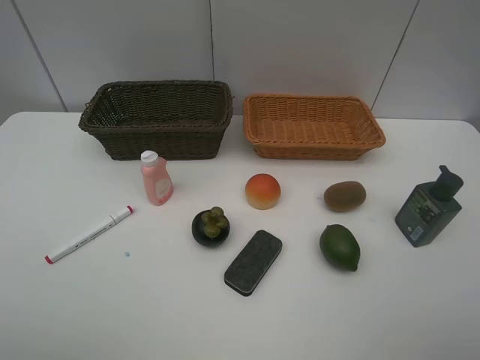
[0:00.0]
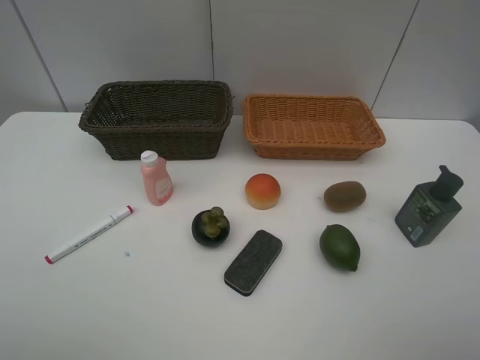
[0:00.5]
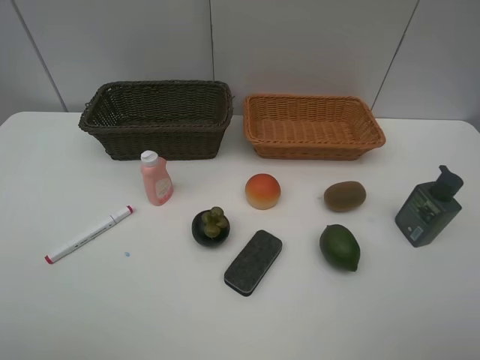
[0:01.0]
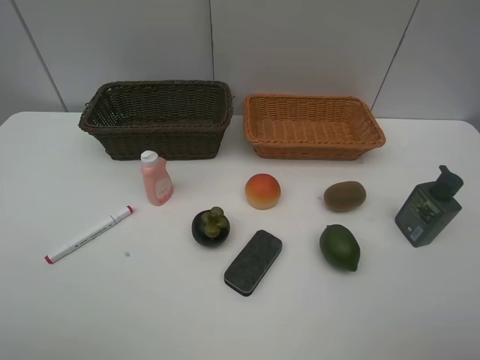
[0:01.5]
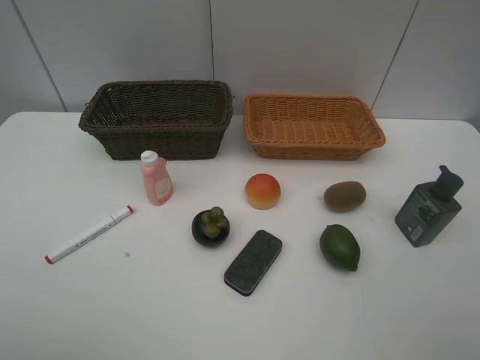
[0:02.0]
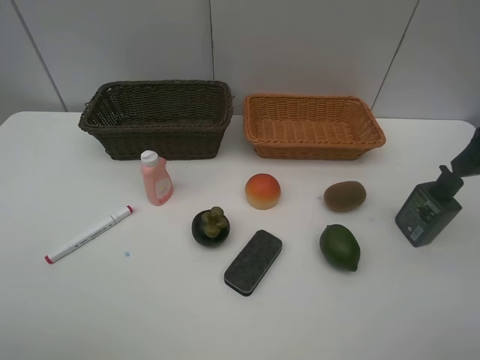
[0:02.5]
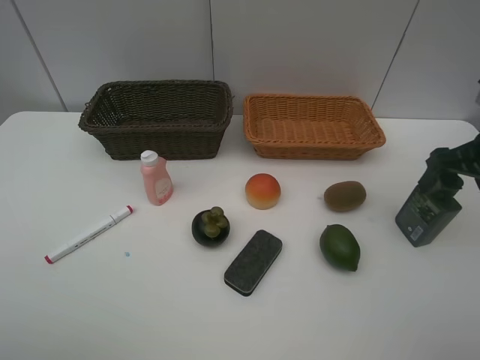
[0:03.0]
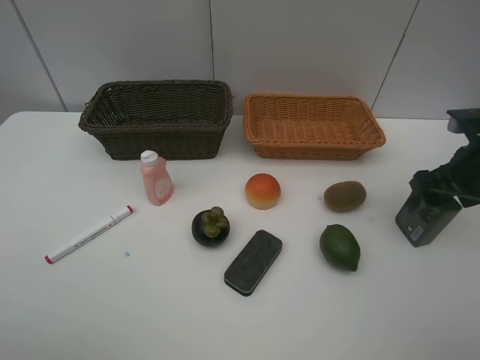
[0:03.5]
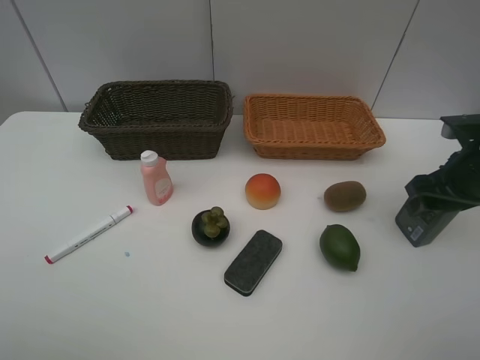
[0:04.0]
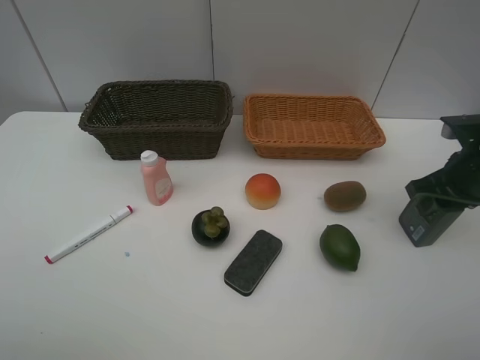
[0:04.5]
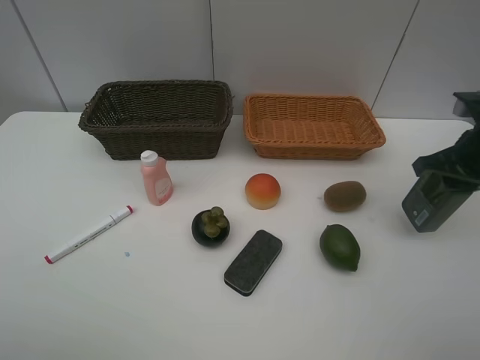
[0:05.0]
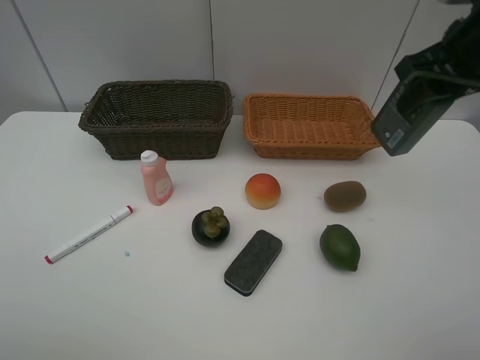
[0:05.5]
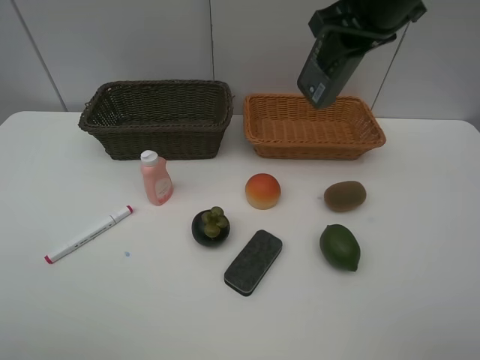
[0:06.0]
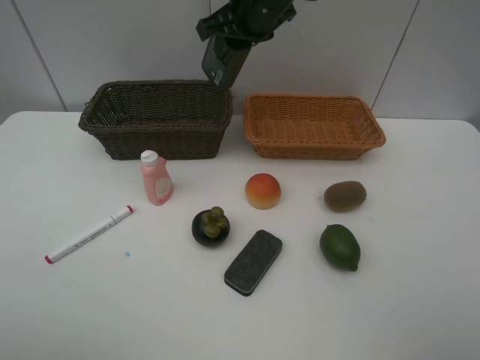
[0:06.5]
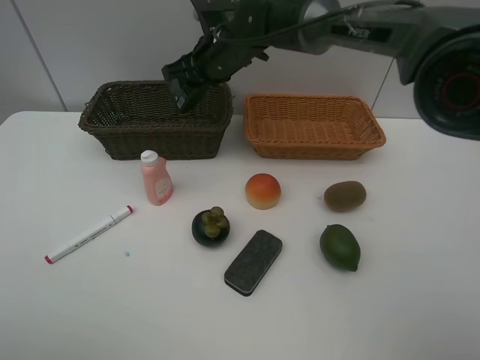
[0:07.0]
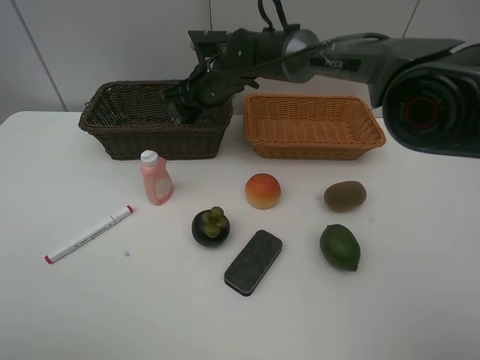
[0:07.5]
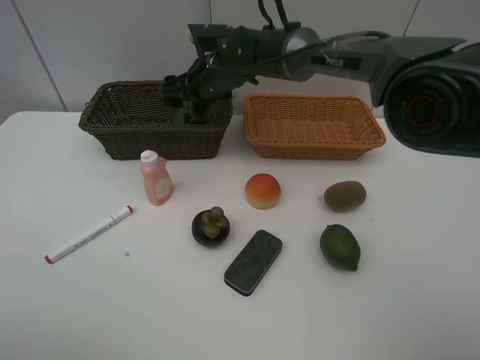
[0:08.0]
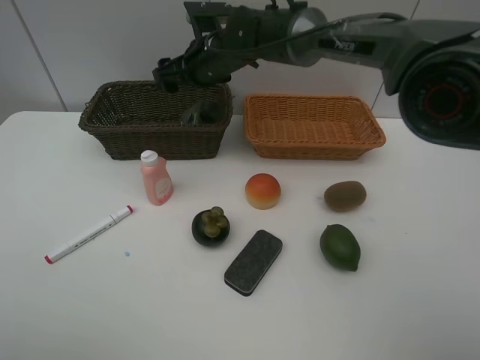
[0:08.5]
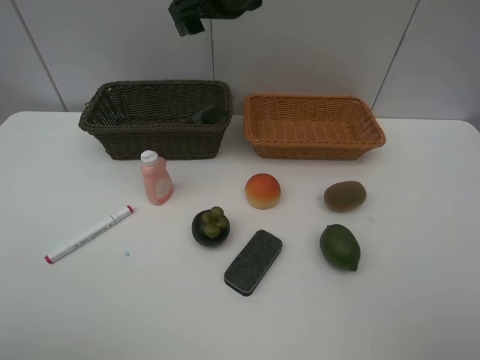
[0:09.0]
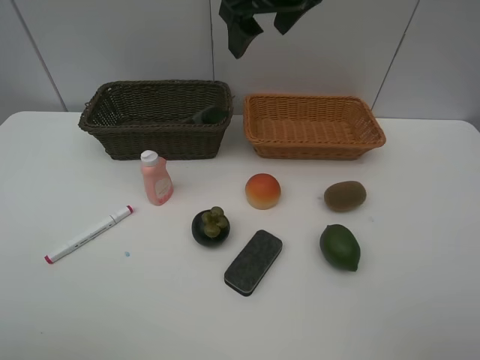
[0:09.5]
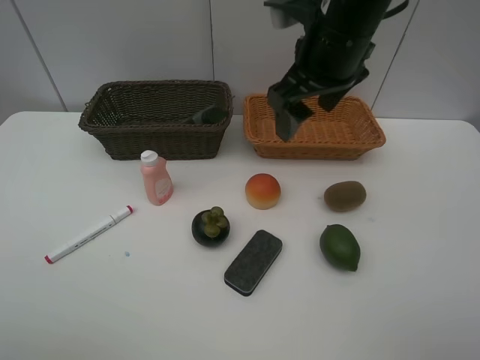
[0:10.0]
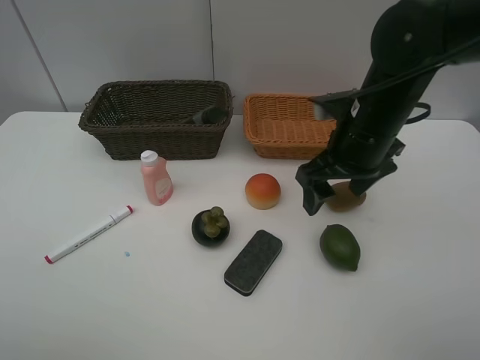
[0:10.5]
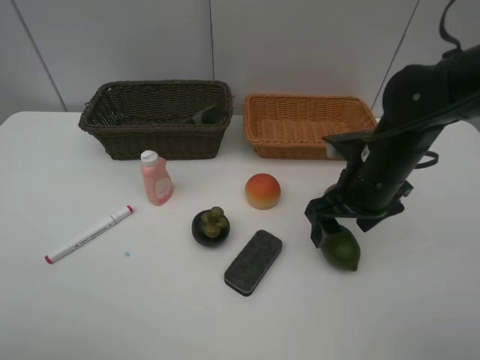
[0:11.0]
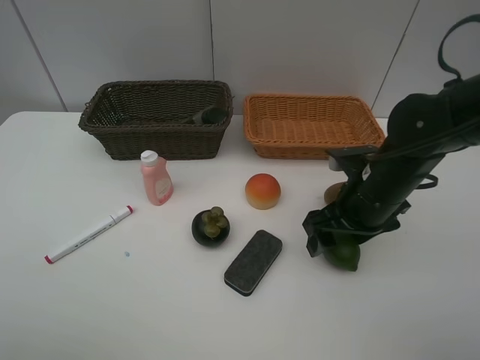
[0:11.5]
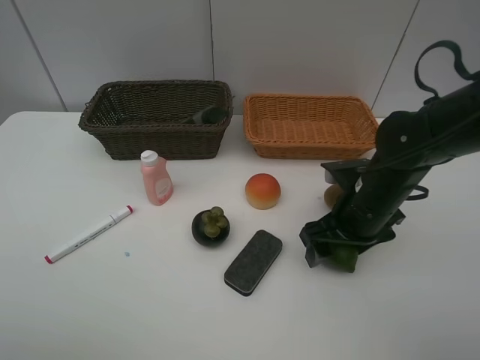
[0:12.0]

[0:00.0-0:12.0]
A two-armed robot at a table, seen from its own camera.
Task of the whole recording: Place multiple objects separately in different baskets.
Step, 0:00.0 to 0:05.0: Pick up the hard facial cleanser with right gripper.
Step, 0:05.5 to 0:08.5: Place the hard facial cleanser in the dark basket with right gripper.
0:02.0 to 0:04.0: The right gripper shifts about 25 cm forward and downward.
0:04.0 to 0:06.0: The right gripper is displaced upward, to the left and forward by about 25 cm, and closes its fingers.
0:06.0 to 0:08.0: The right gripper heads to the left, downward and forward, covering roughly 25 cm, and opens up.
0:08.0 to 0:10.0: The right gripper moves backward, to the right and upward, approximately 25 cm.
0:10.0 to 0:12.0: The right gripper moves downward, some 20 cm.

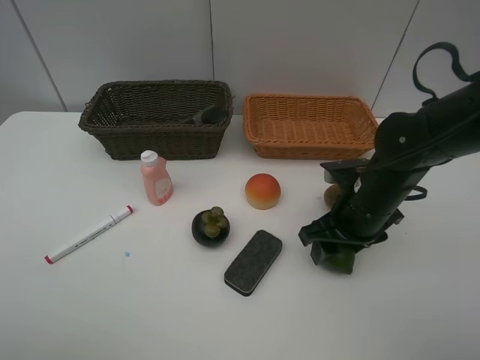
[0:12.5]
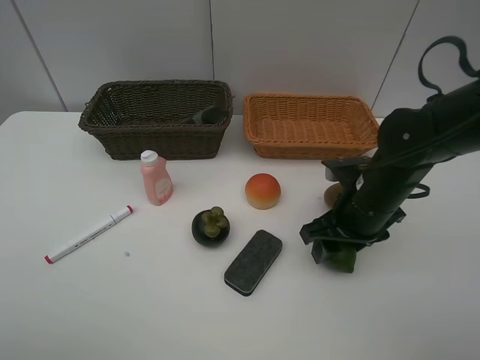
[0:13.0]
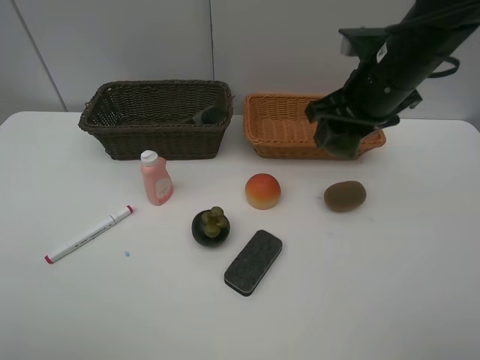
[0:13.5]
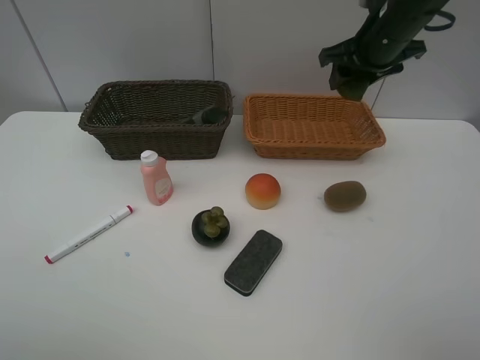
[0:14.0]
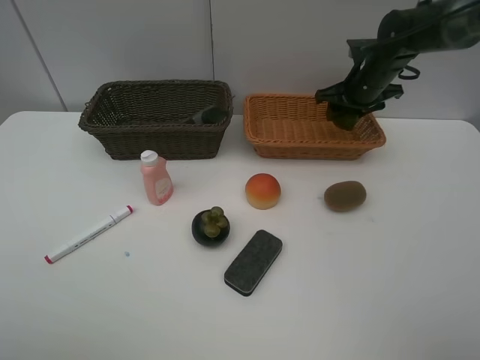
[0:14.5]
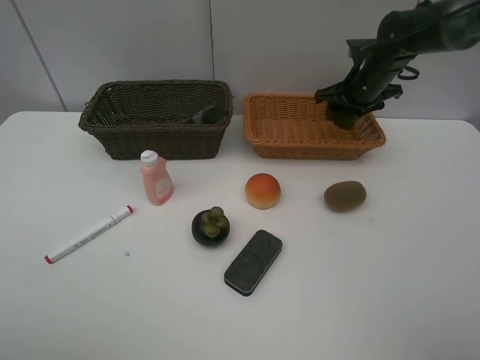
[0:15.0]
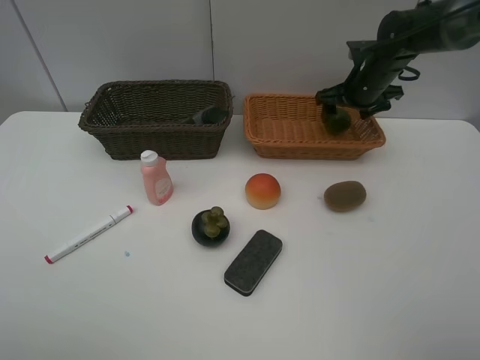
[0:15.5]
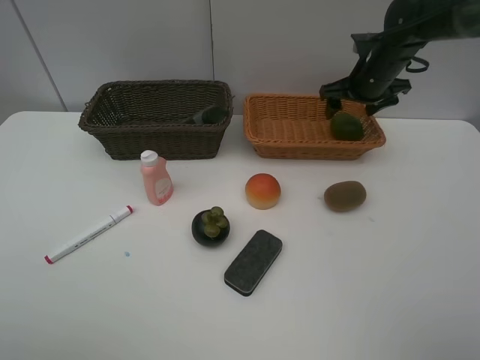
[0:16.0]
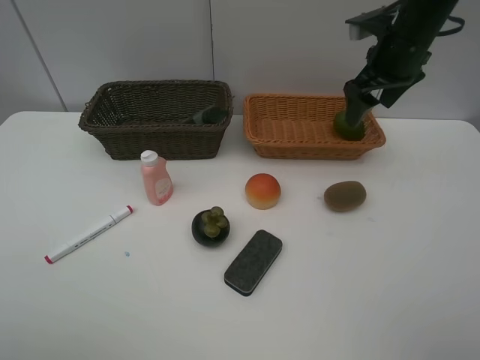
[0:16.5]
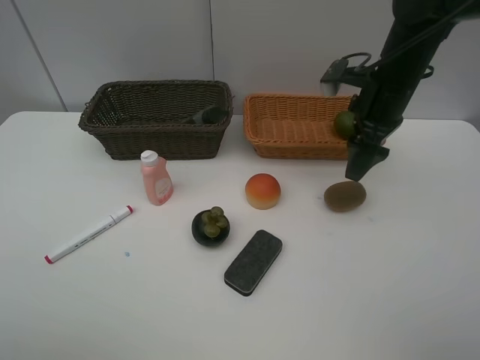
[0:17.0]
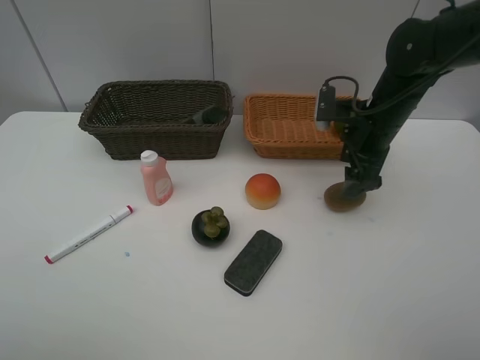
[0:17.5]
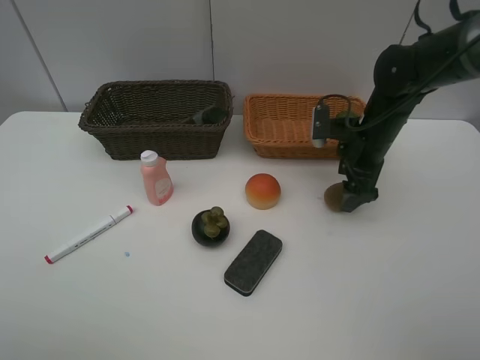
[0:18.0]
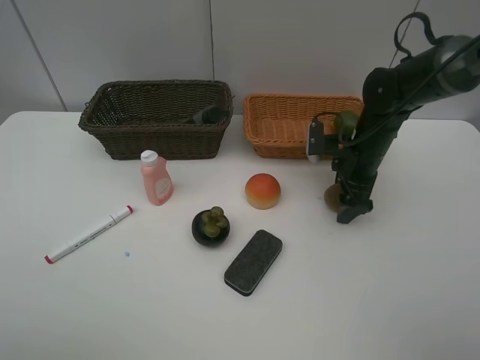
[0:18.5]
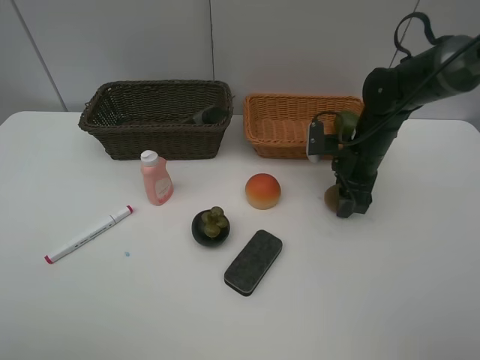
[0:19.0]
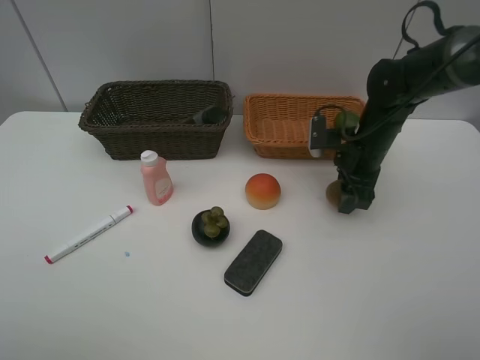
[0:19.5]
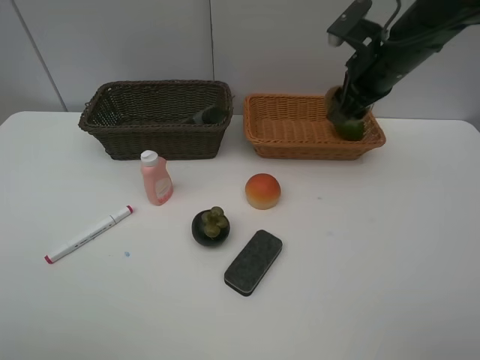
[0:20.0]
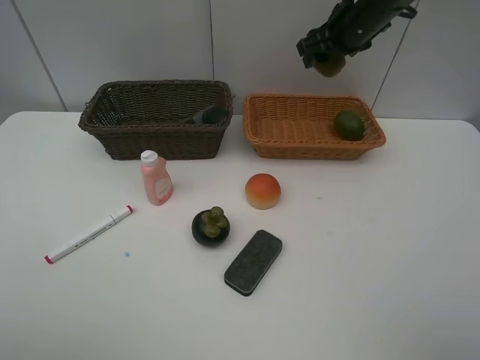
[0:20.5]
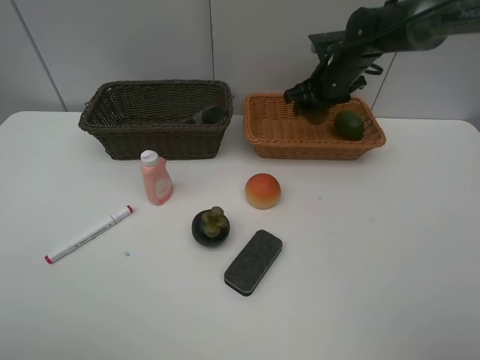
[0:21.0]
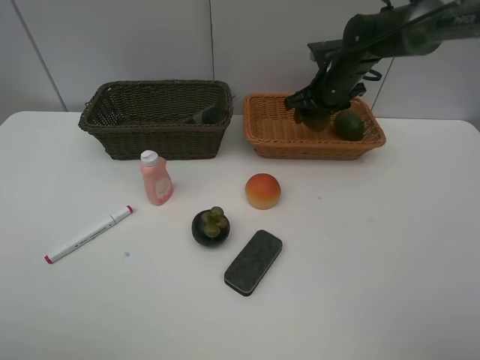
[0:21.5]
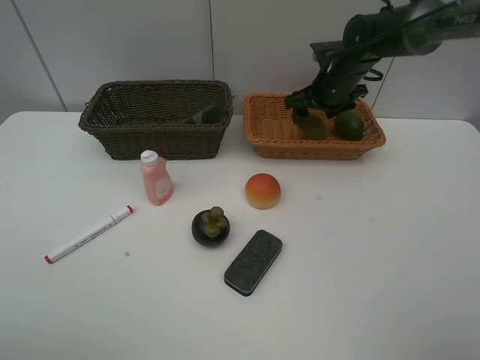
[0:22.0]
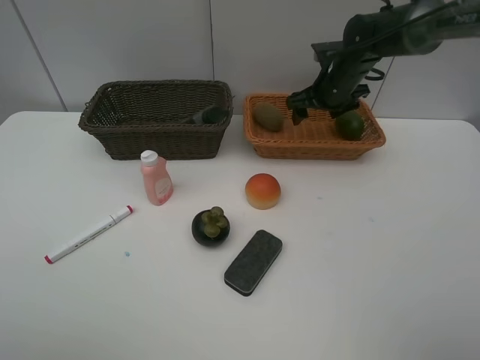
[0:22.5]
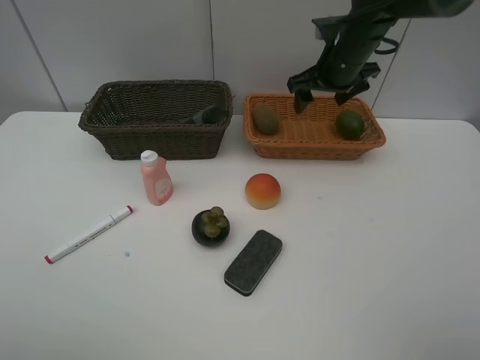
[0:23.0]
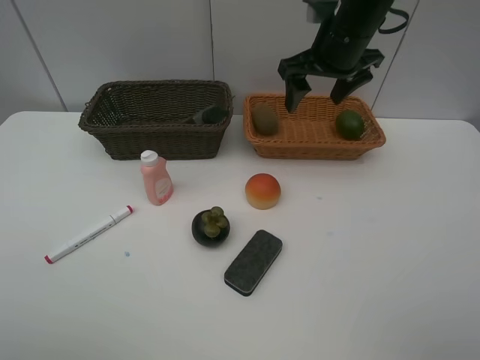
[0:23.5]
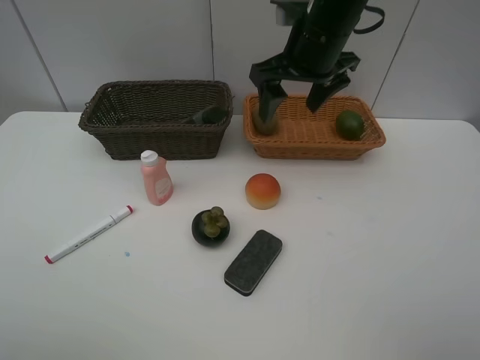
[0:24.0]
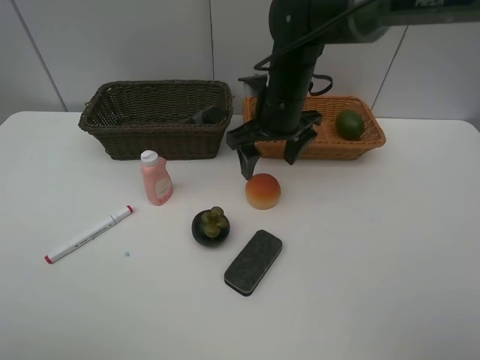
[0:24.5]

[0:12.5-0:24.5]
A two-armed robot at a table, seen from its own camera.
Task of the whole recording: Place multiple objects separately in different baskets.
Step, 0:13.5 to 0:15.5: Place the lime in the light basket with right gripper.
Step, 0:16.0 to 0:19.5: Pick up kiwi with right gripper.
Step, 0:20.0 to 0:22.0: Place the kiwi in the light basket with right gripper.
0:12.5 to 0:14.5: The right gripper is displaced forward by approximately 20 cm.
0:14.5 to 0:16.5: The right gripper heads upward and backward, covering about 10 cm, and opens.
0:16.5 to 0:18.5: The right gripper heads downward, covering approximately 15 cm.
0:18.5 to 0:20.5: The right gripper shifts some 20 cm upward and forward, and closes up.
0:20.5 to 0:22.5: The right gripper is displaced downward by approximately 10 cm, and opens its fingers.
0:22.5 to 0:24.5: The right gripper travels to the left and backward by some 15 cm.

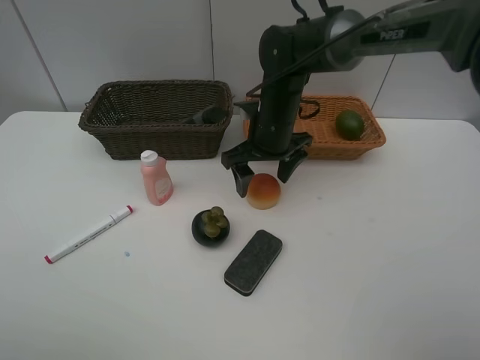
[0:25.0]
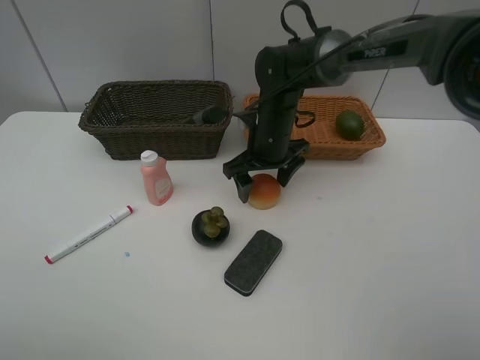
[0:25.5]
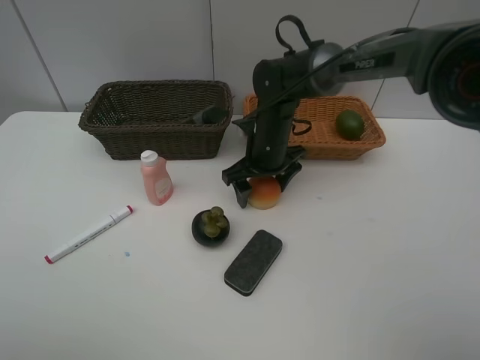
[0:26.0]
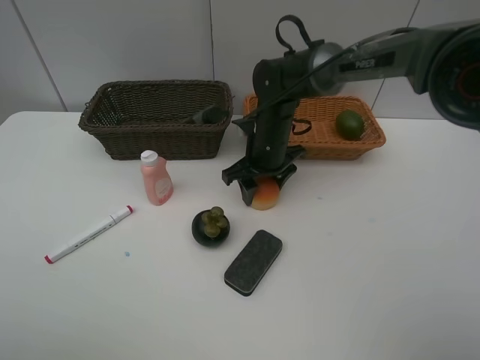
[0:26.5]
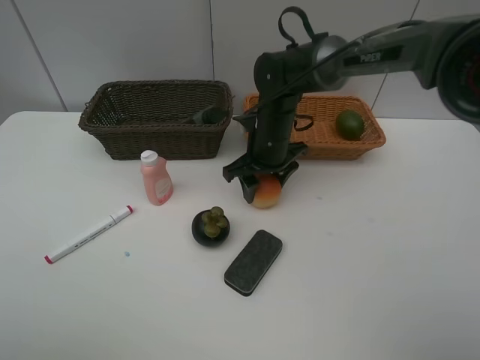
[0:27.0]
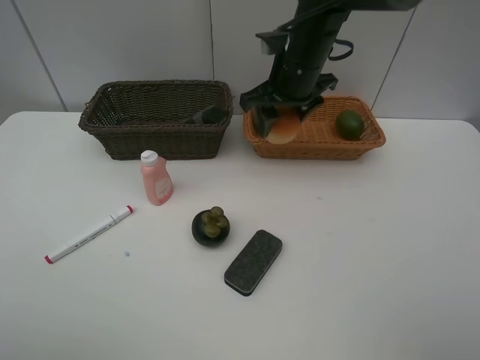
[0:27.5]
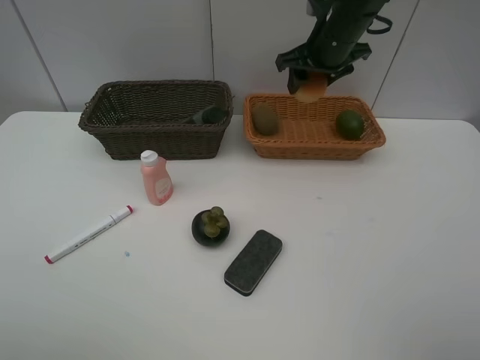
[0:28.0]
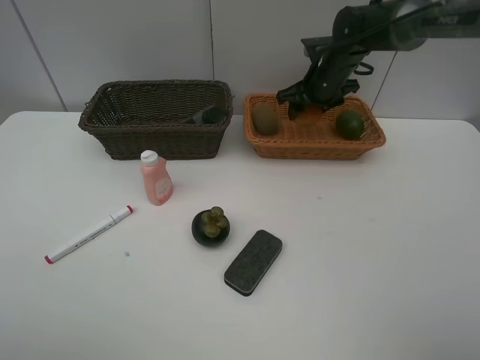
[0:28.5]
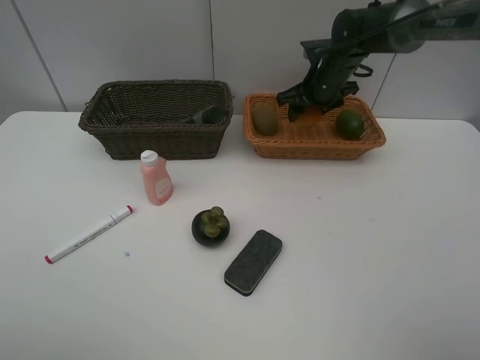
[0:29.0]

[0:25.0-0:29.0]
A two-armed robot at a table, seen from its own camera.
Task of the whole recording: Place multiple objects separately in different baskets.
Step, 0:25.0 to 0:27.0: Pick up egg yolk pastry with right gripper.
0:25.0 to 0:27.0: The right gripper closes its fingers.
0:27.0 to 0:29.0: The right gripper moves to the right and forward, about 15 cm.
